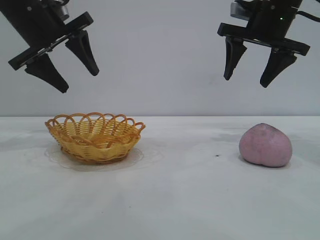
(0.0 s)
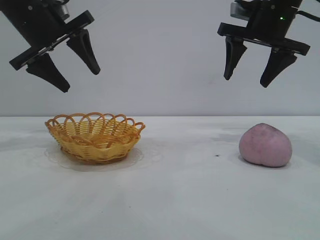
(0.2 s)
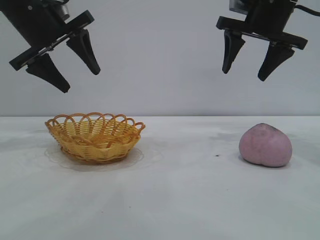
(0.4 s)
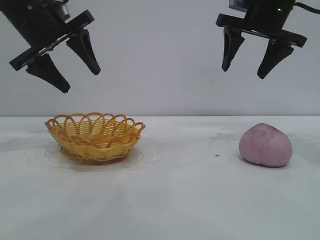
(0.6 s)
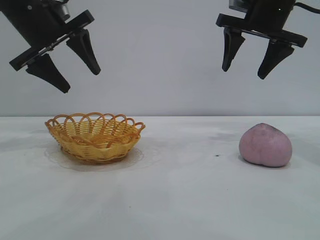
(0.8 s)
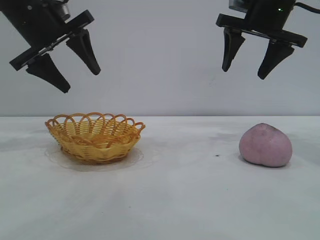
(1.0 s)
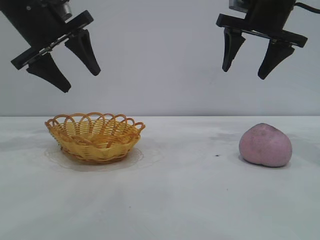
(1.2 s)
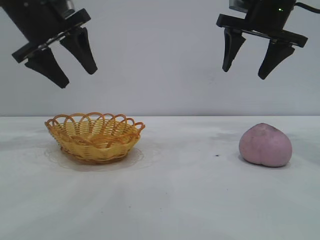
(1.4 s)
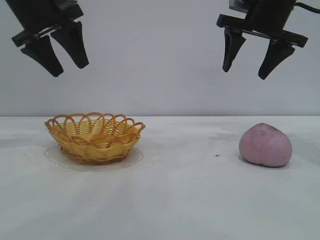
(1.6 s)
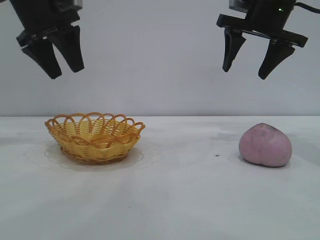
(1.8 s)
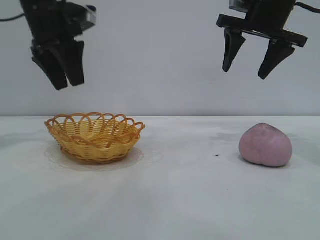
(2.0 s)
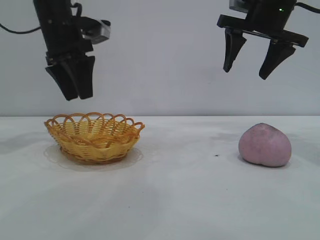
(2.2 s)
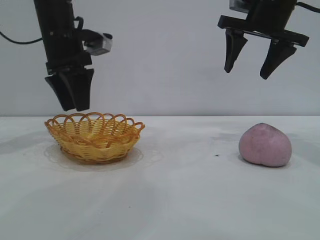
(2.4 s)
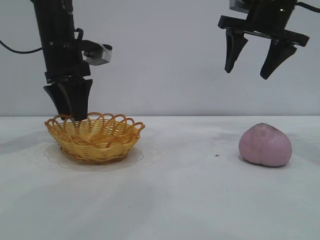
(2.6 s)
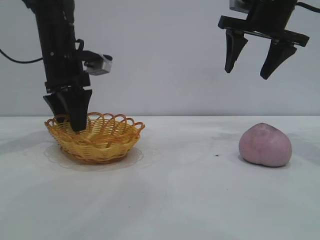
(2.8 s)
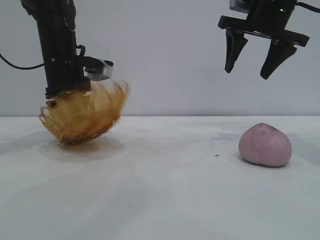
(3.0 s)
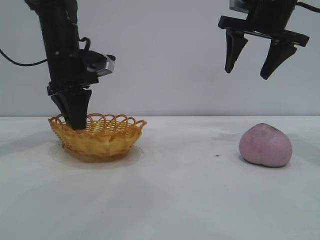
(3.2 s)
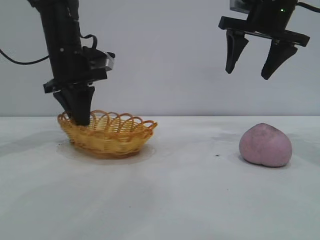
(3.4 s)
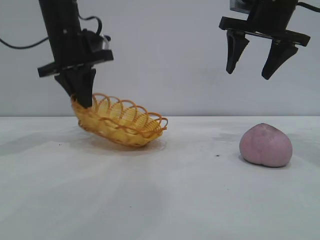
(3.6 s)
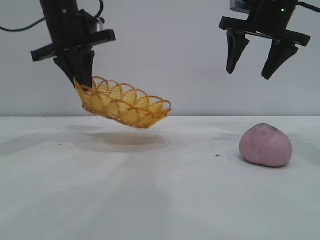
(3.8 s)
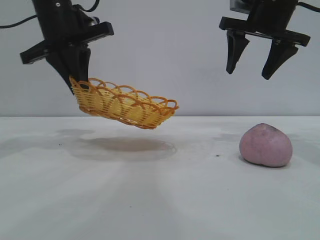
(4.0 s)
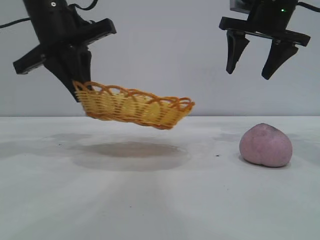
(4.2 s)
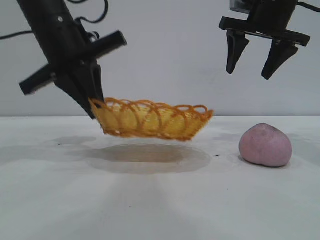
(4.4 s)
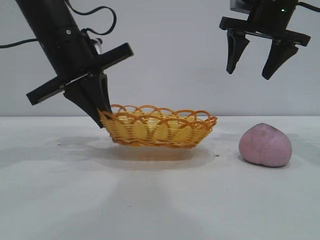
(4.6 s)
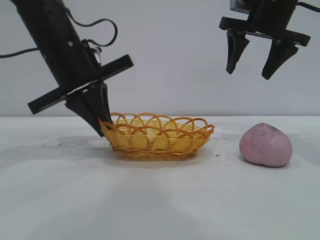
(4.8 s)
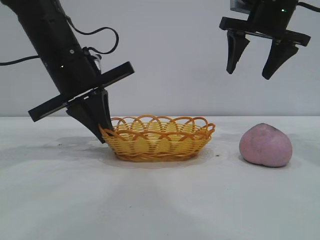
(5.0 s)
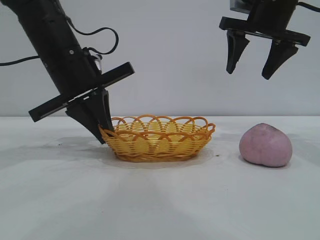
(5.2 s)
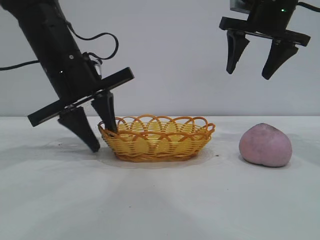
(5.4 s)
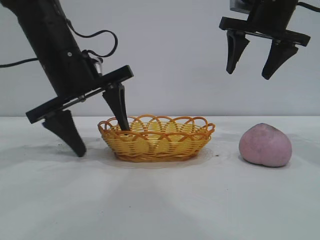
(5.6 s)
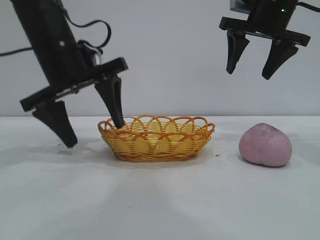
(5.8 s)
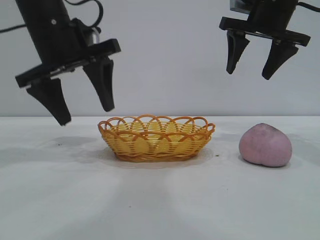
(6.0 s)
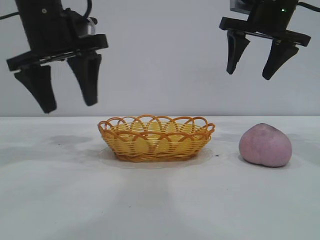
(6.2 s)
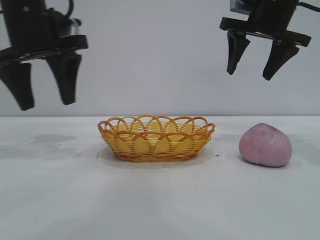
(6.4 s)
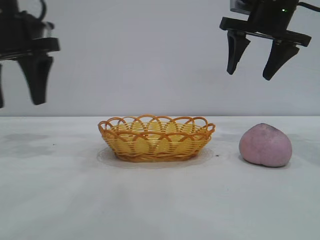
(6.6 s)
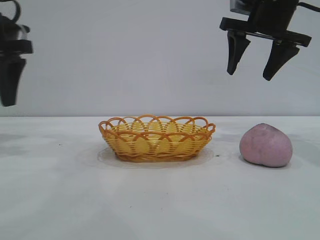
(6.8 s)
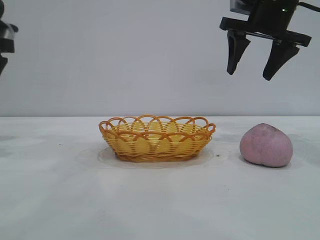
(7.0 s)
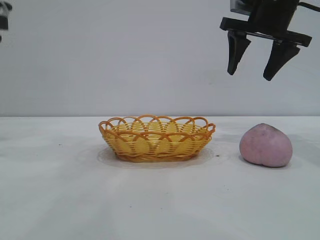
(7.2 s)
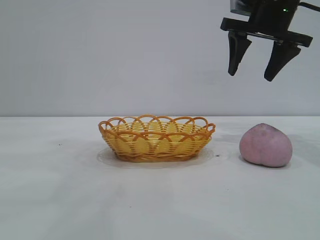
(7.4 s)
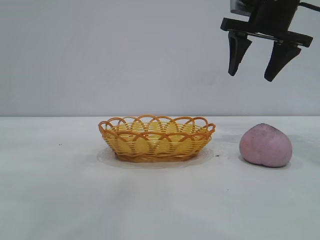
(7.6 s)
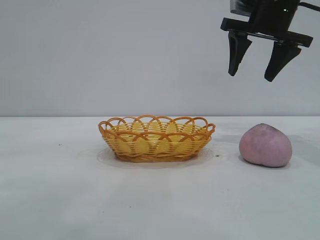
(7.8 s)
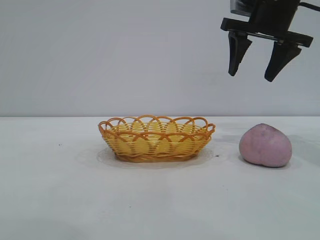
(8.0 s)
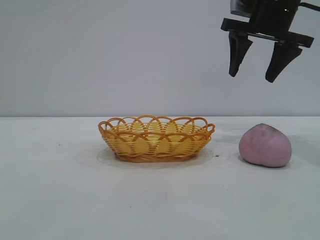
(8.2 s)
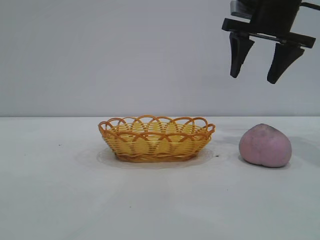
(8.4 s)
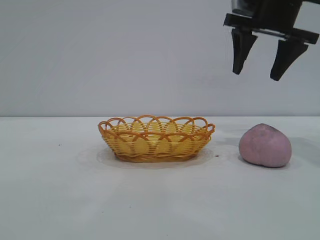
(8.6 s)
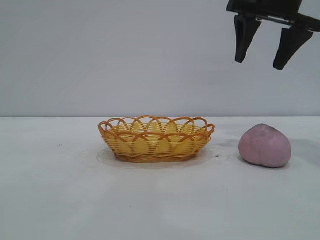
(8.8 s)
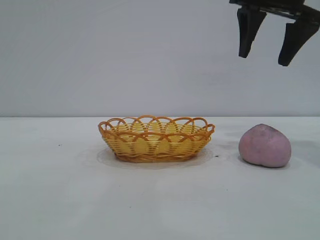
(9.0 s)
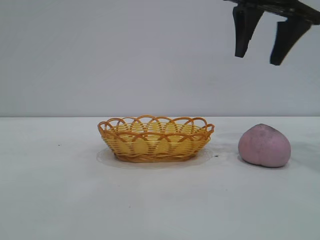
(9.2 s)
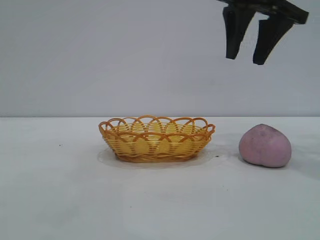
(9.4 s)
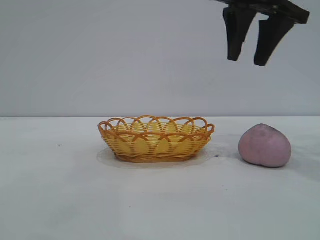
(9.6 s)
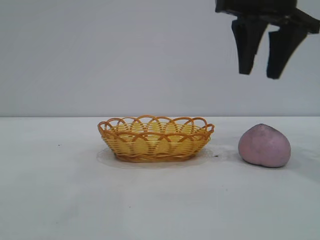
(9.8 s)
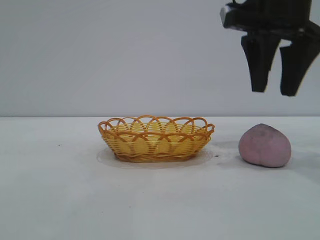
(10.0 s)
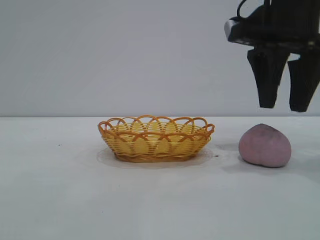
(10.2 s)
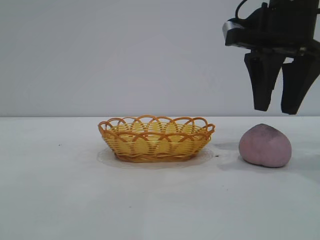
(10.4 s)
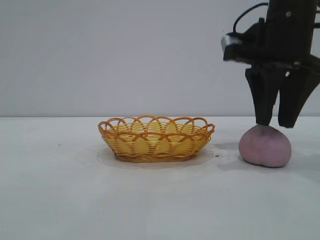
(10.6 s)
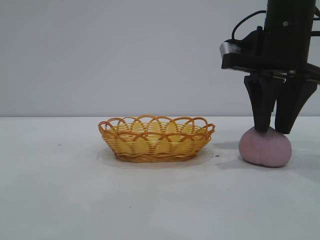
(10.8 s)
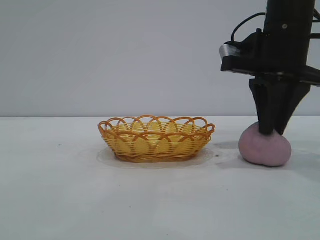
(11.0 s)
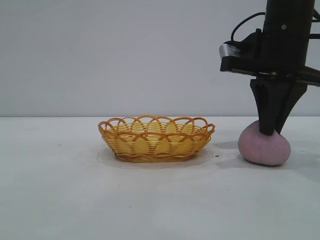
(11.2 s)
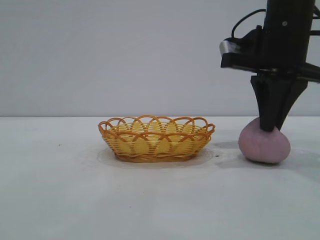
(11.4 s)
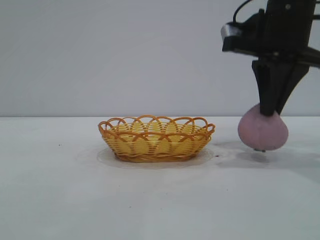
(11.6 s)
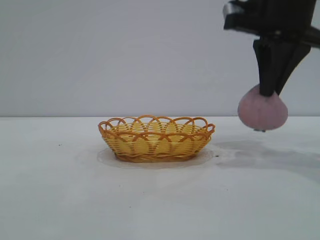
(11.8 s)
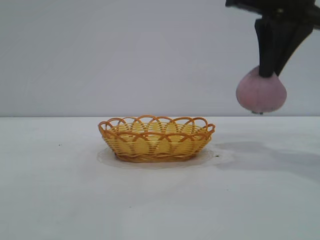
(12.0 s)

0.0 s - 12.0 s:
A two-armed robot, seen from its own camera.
Task of the whole recording: pick up the peach and put it into the basket.
Step, 0.0 s - 5.8 s: Move the basket to the center of view.
Step, 6.0 s - 11.6 s: Pick up the peach.

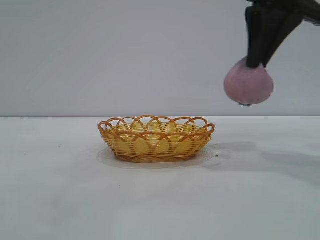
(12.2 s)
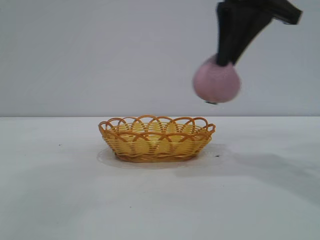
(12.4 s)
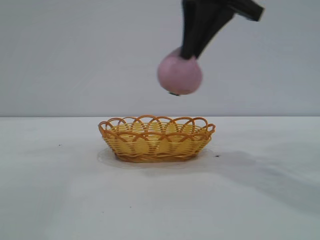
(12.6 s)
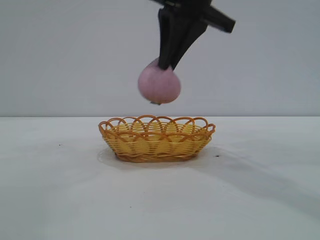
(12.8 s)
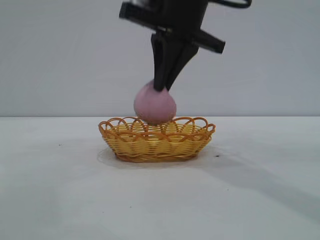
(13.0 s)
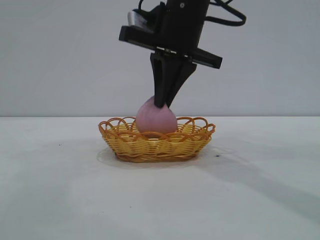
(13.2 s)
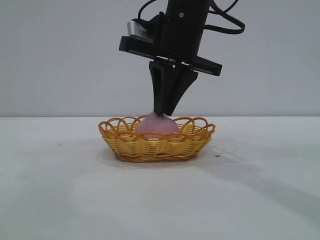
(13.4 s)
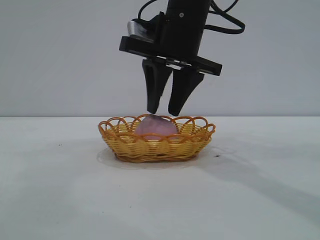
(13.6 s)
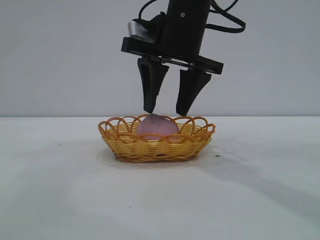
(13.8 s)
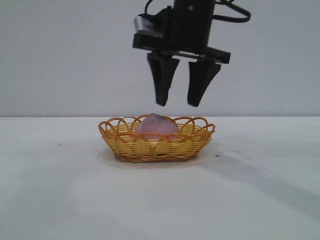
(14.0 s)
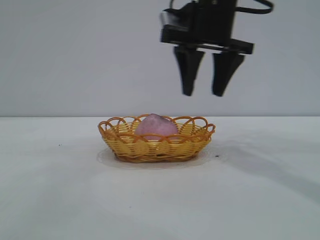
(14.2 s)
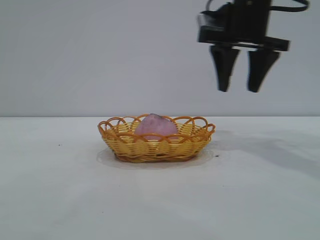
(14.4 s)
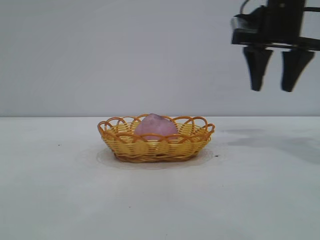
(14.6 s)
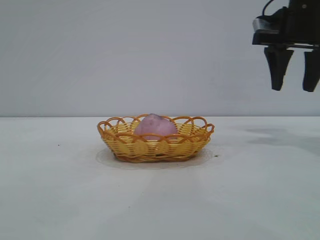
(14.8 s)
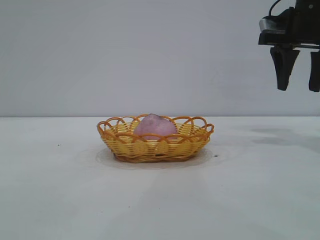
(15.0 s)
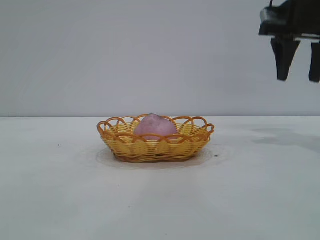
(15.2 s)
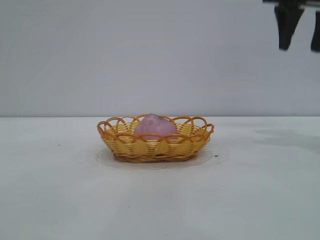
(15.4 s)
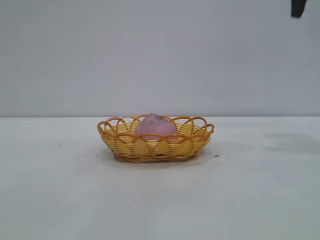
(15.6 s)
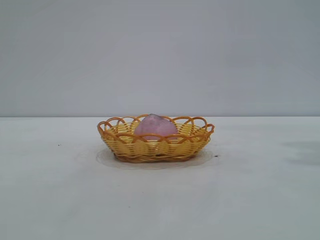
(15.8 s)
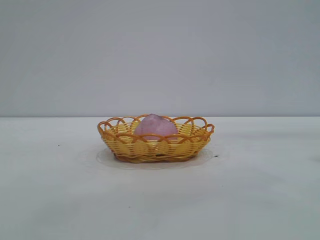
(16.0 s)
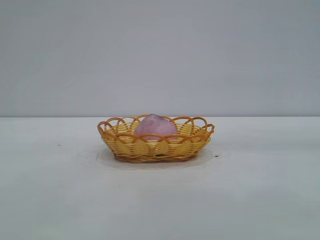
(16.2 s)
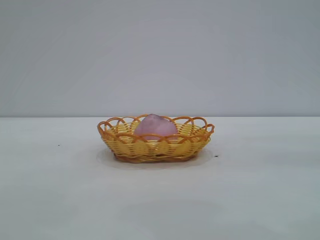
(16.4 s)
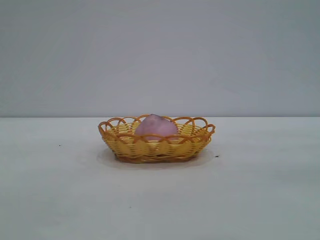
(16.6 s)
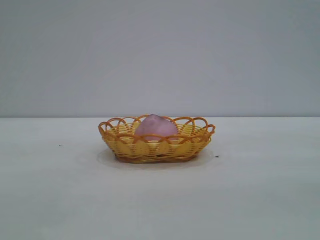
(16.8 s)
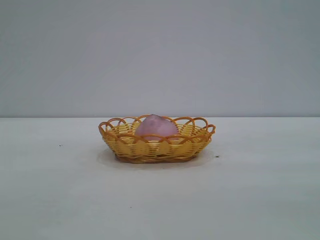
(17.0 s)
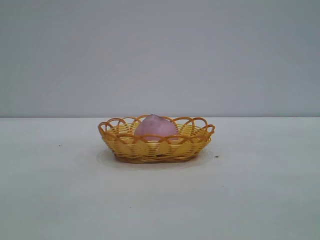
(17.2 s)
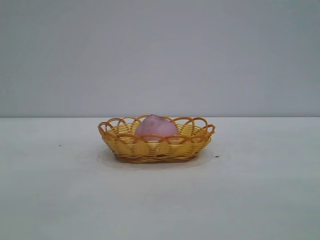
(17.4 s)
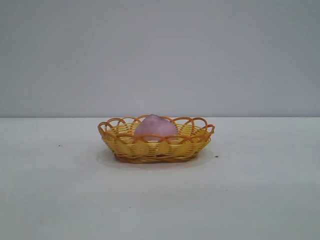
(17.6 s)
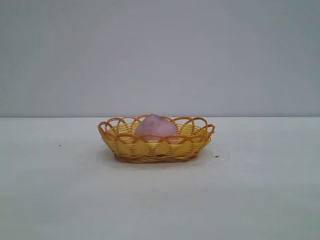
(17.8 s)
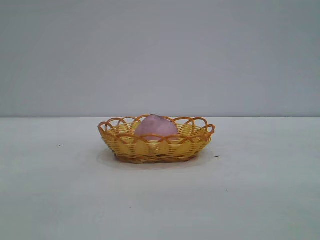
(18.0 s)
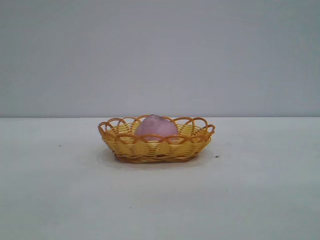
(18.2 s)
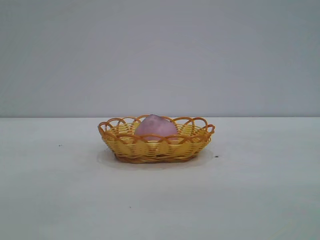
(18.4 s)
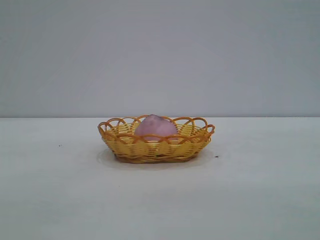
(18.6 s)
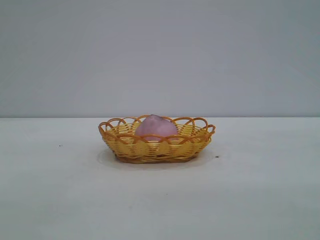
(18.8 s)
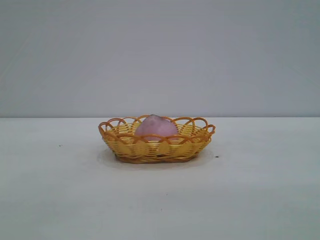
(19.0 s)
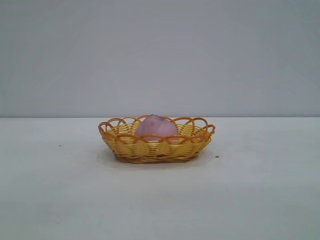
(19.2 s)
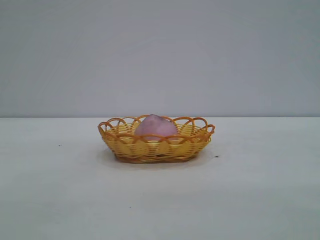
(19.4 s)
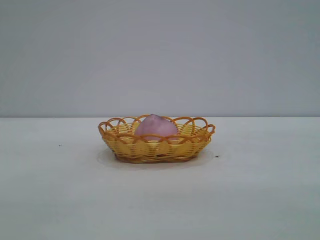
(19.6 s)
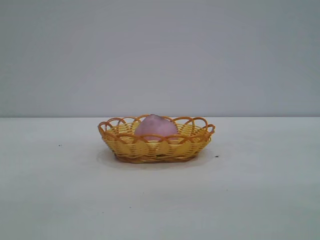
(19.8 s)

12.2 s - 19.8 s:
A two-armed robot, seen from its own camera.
Task of the whole recording: pick up the peach and put it into the basket.
Step, 12.2 s - 13.8 s: place the peach into the basket.

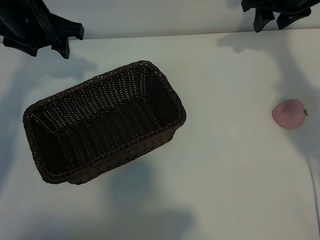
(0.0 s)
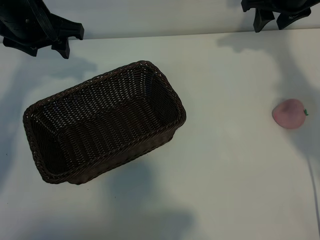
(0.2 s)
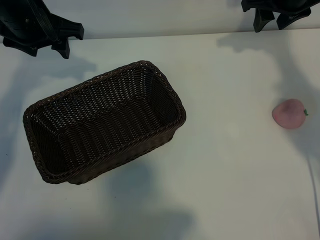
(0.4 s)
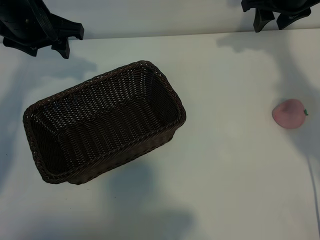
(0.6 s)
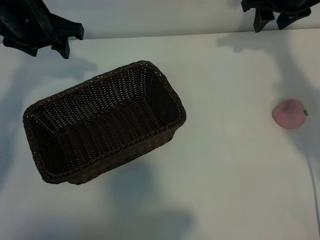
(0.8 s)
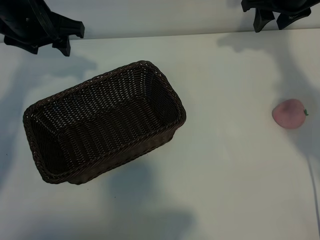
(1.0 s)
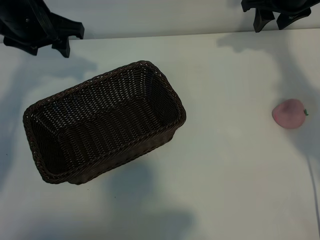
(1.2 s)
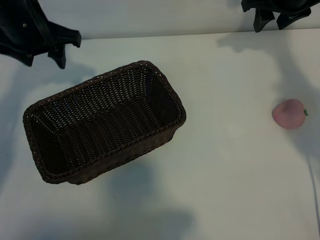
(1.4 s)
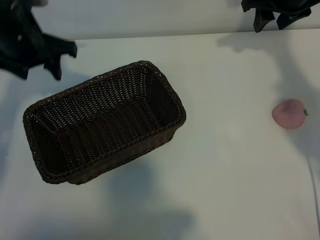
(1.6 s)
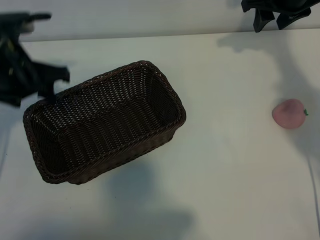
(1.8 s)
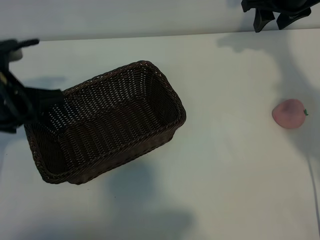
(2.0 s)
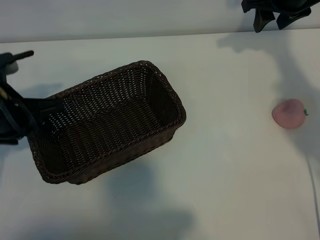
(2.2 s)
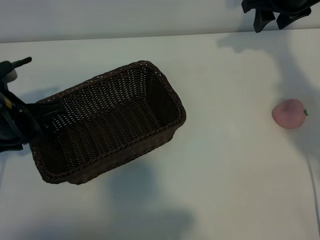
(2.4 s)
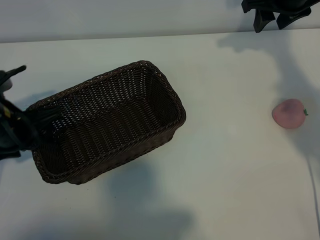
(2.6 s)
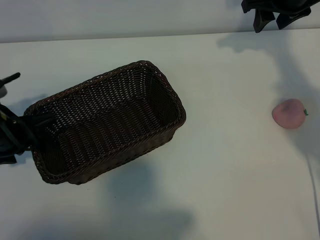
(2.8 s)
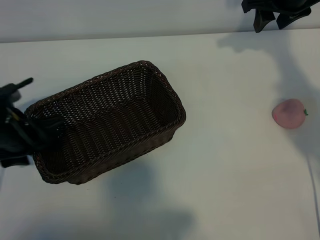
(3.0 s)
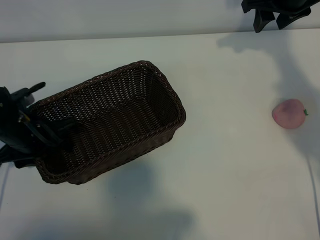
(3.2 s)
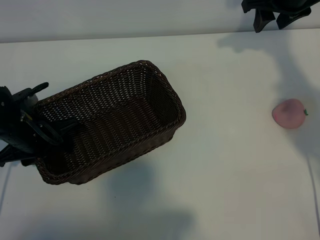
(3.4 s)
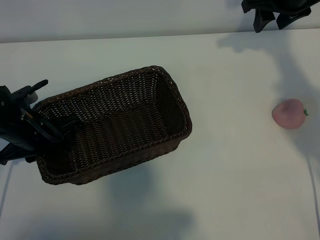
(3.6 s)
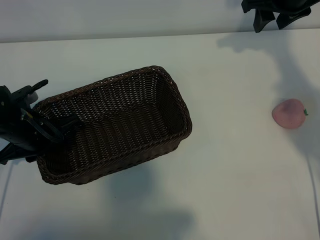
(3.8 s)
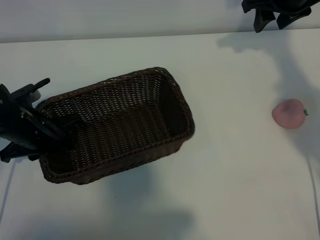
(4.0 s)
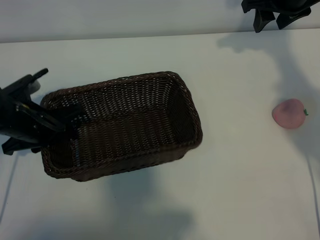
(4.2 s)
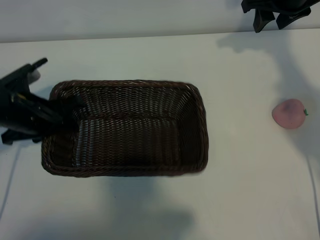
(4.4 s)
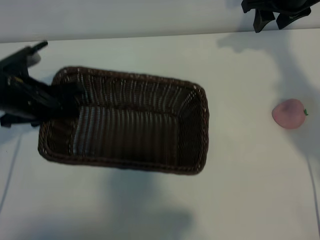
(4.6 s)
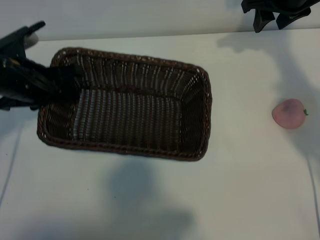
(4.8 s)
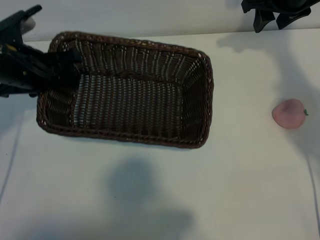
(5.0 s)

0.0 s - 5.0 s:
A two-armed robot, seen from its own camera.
Task of the whole recording: pick up the peach and put it into the basket.
Step, 1.0 s - 3.2 s: Grasp the basket with left gripper.
